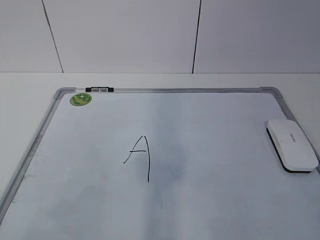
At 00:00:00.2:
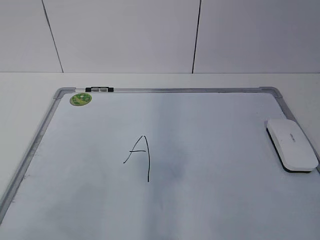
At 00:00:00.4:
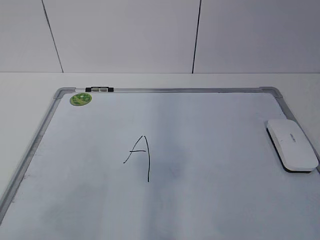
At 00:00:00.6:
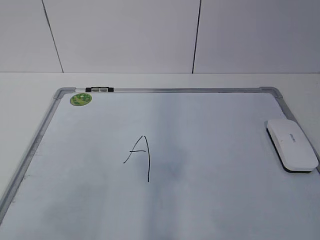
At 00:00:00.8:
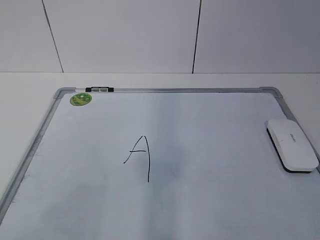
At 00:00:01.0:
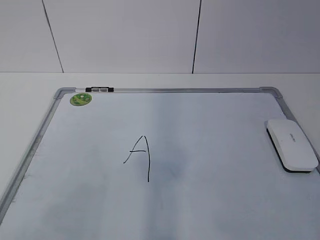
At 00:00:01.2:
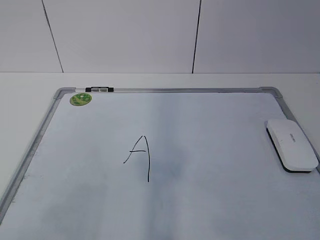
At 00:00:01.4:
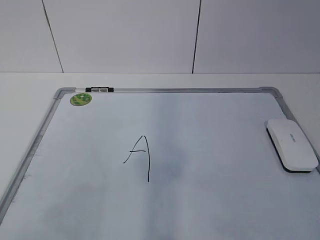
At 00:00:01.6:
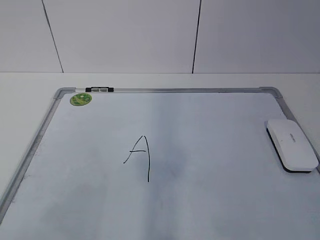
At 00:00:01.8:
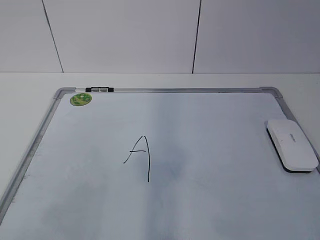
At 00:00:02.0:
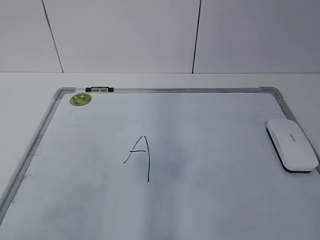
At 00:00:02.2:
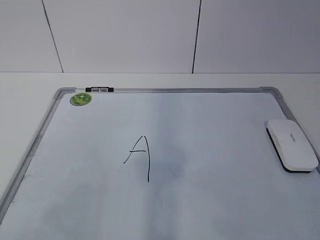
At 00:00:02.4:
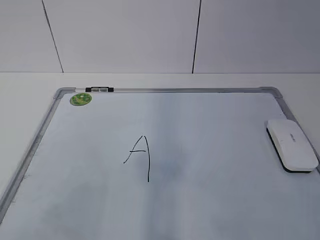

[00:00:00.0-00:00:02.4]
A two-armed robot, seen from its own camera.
Task of the whole recording: pick up the eraser on the blackboard and erase the letter "a".
00:00:01.2 to 00:00:02.4: Both grippers stay about where they are.
